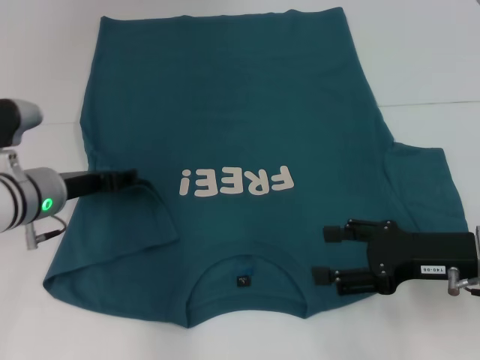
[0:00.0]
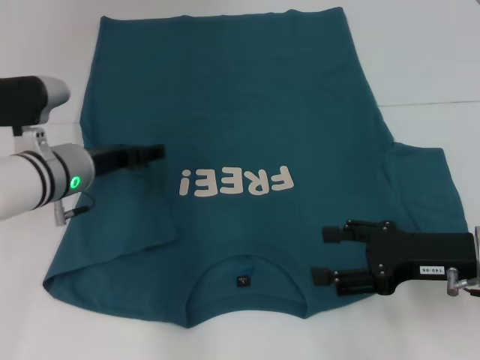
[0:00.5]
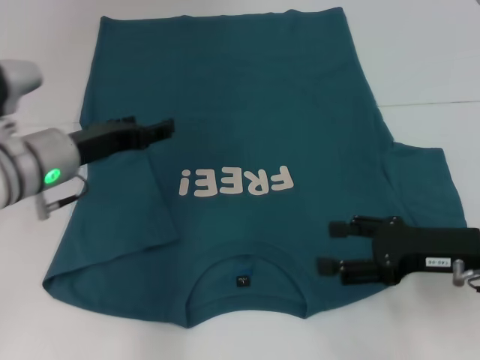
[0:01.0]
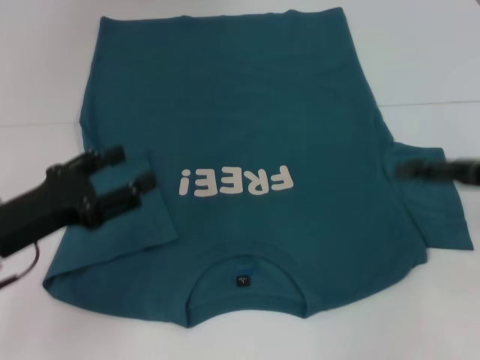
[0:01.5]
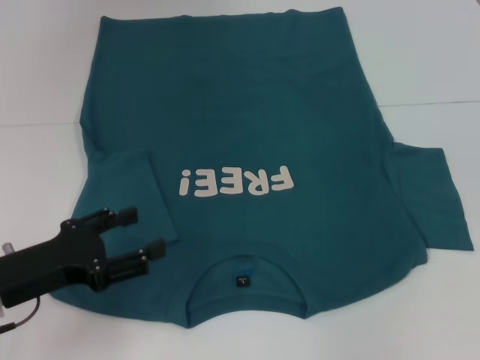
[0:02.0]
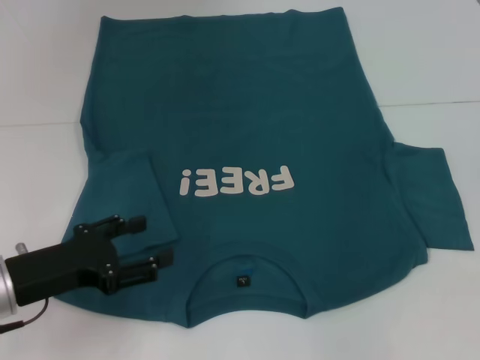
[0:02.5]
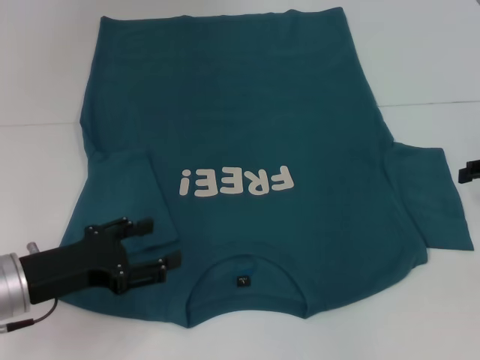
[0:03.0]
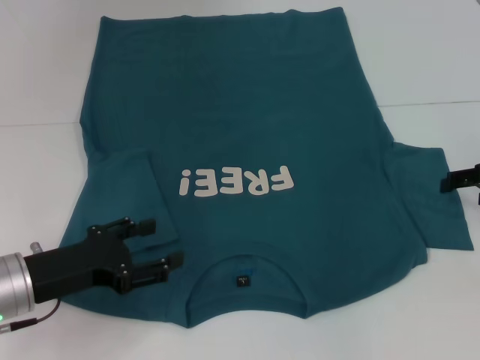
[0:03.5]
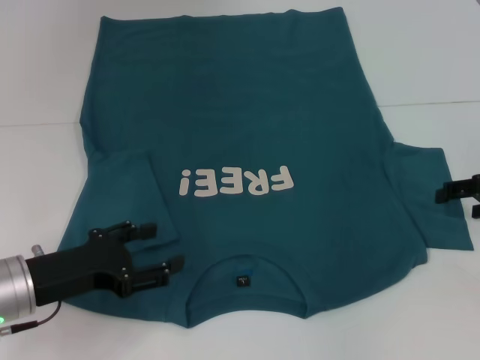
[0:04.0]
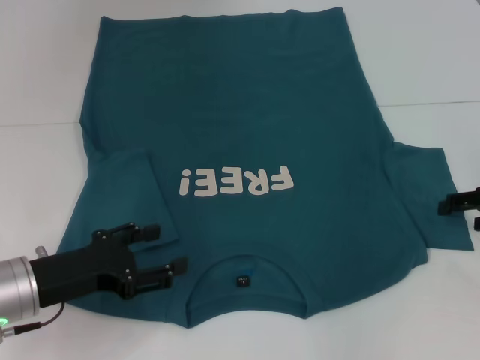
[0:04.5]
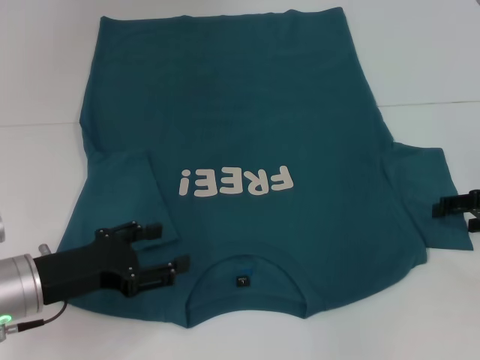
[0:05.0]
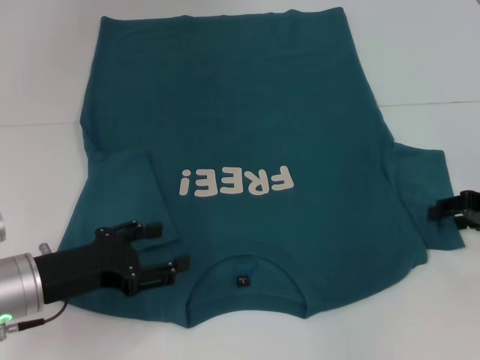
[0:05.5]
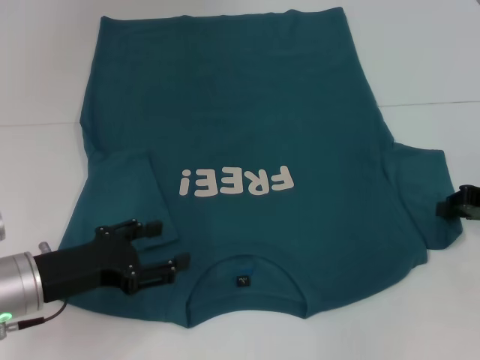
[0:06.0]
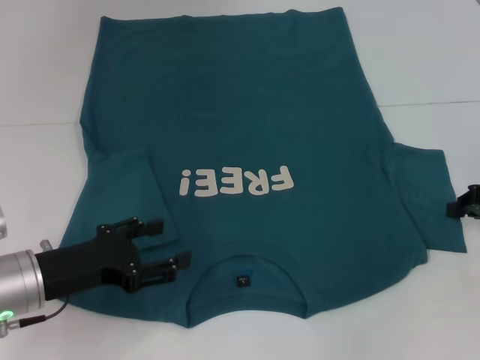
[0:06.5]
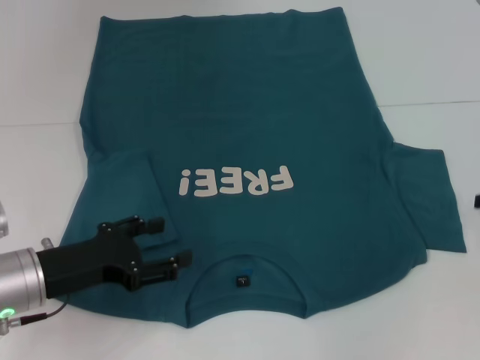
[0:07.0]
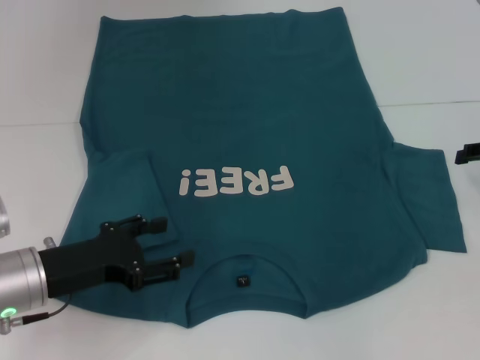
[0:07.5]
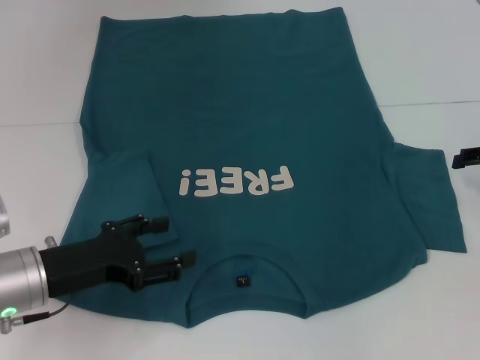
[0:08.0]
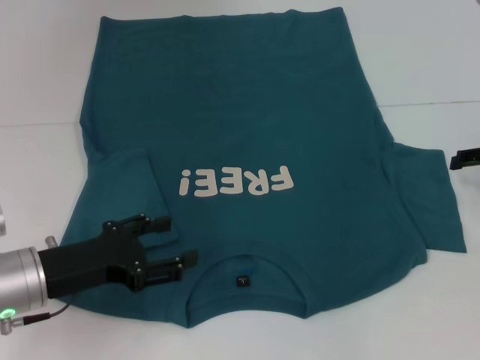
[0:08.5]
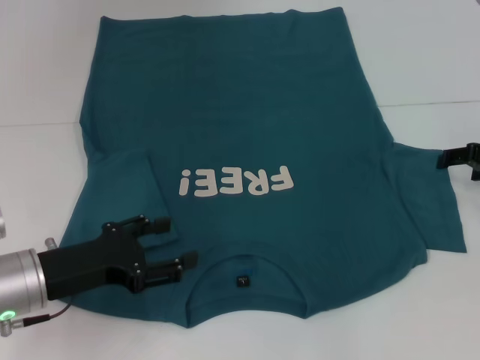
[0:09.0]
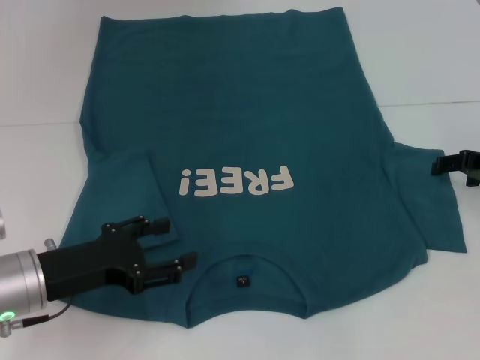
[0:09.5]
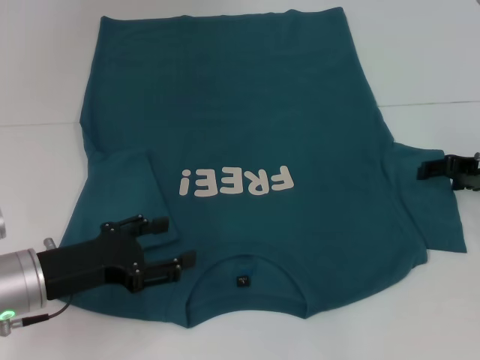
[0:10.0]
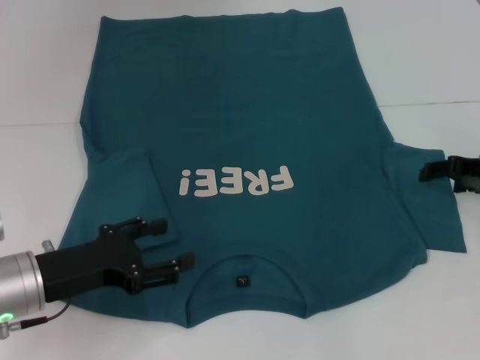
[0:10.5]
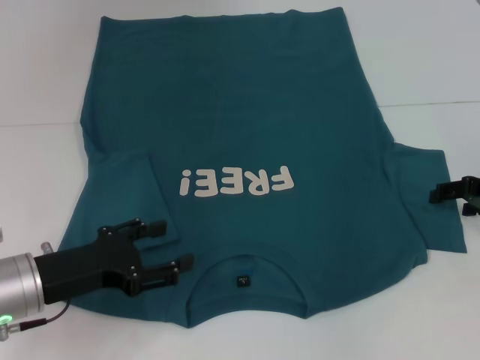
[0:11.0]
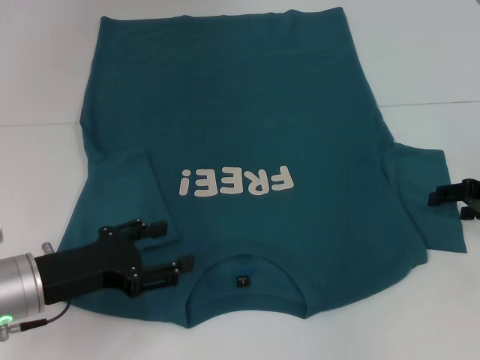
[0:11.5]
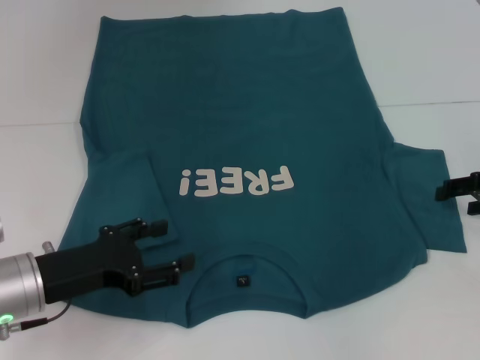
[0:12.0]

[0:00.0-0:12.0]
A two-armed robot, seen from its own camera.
0:00.0 to 0:02.0: The left gripper is displaced backward by some 10 cm, while the right gripper heads to the right and upward, covering approximately 20 cm.
0:02.0 to 0:04.0: The right gripper moves downward, approximately 10 cm.
0:04.0 to 0:06.0: The right gripper closes its fingers.
0:06.0 to 0:08.0: The right gripper opens up.
0:08.0 to 0:10.0: The right gripper changes place by roughly 5 cm.
0:10.0 to 0:12.0: The grippers stay close to where they were, moving slightly.

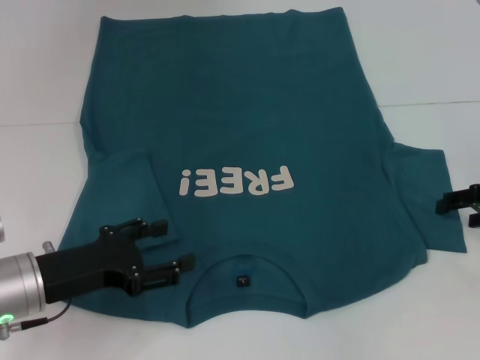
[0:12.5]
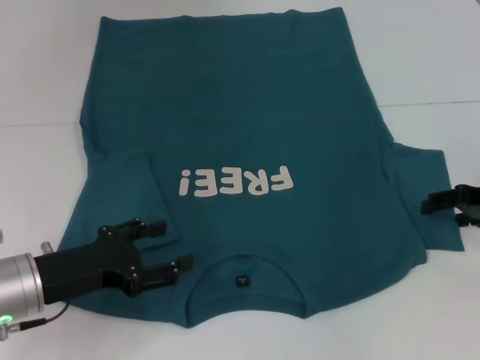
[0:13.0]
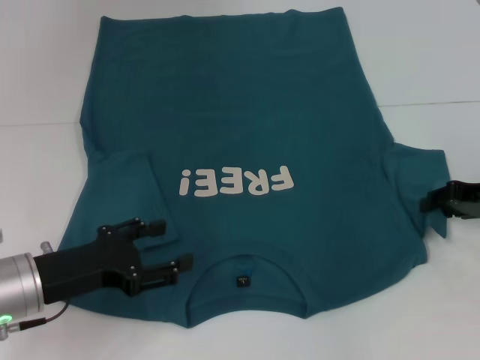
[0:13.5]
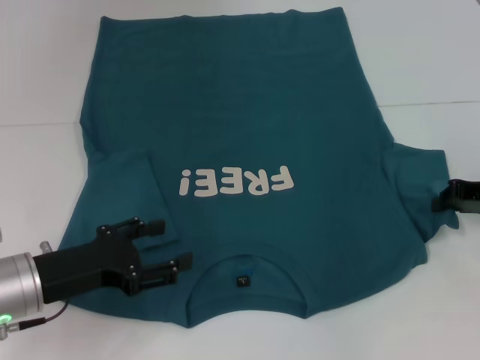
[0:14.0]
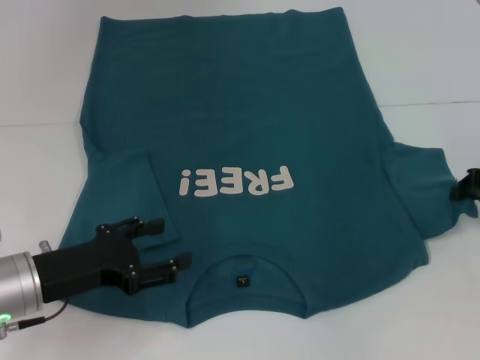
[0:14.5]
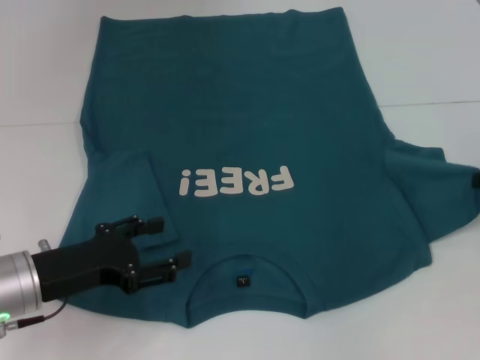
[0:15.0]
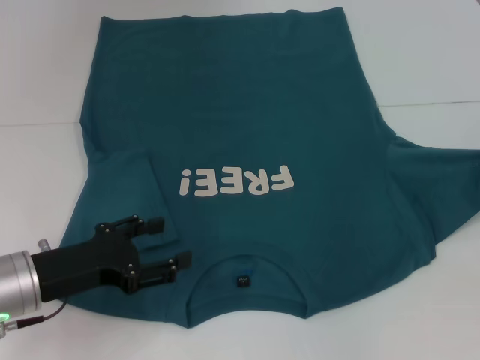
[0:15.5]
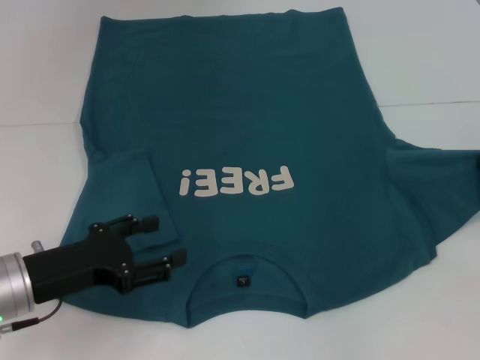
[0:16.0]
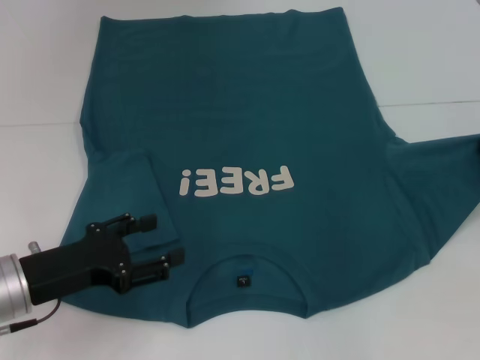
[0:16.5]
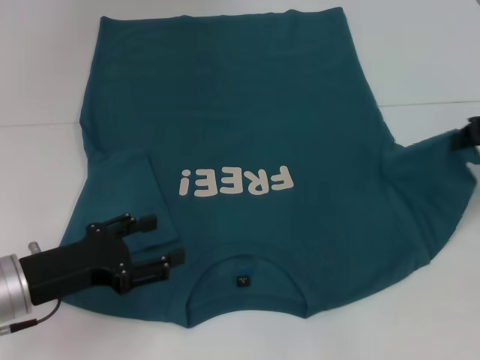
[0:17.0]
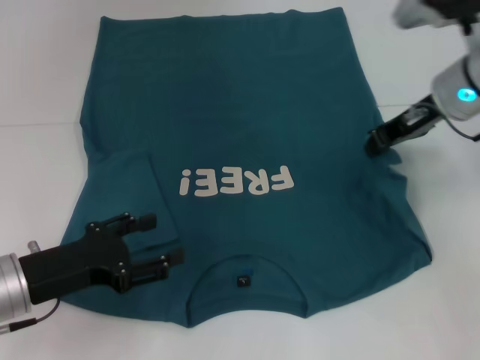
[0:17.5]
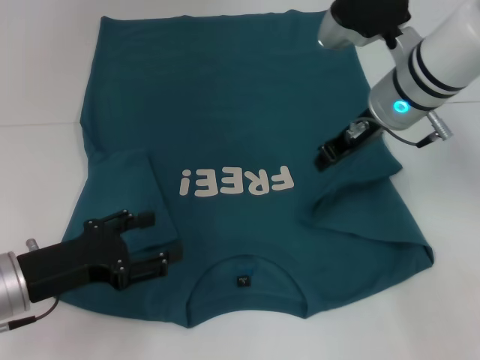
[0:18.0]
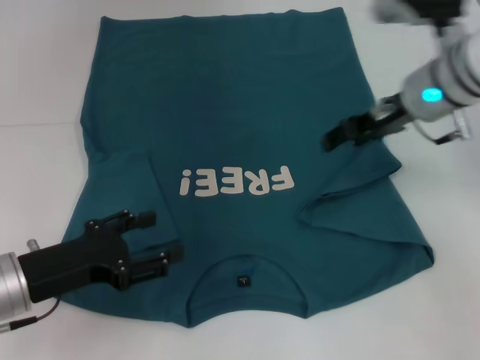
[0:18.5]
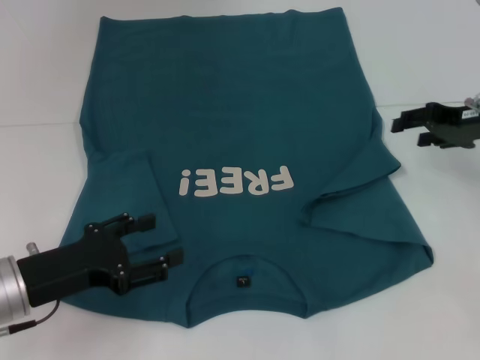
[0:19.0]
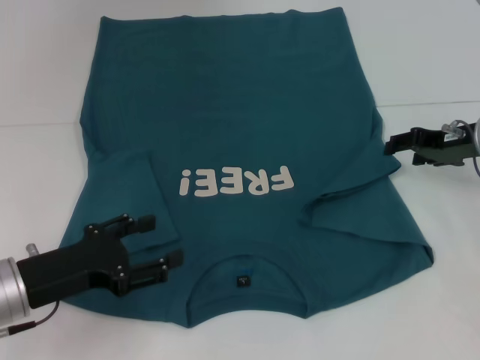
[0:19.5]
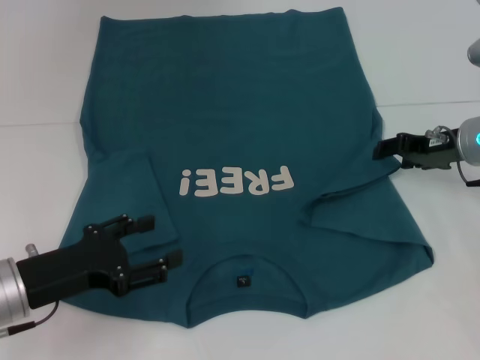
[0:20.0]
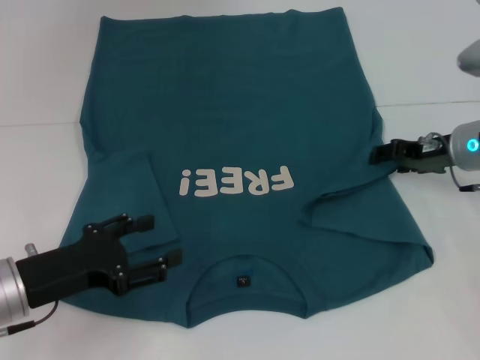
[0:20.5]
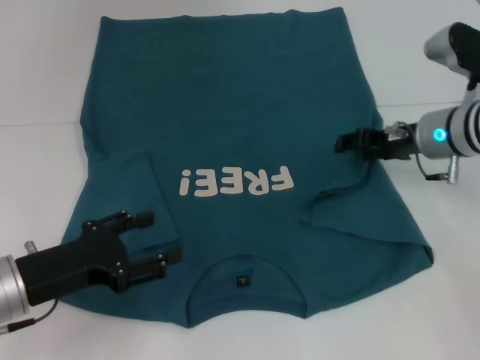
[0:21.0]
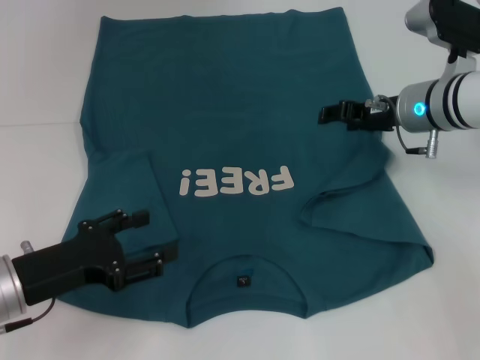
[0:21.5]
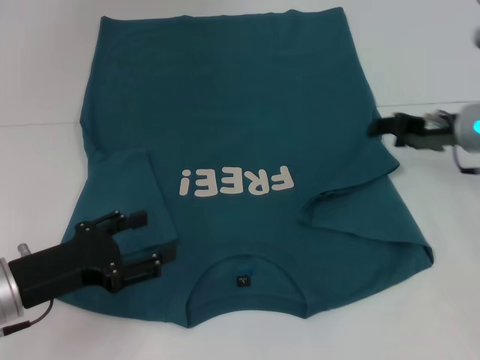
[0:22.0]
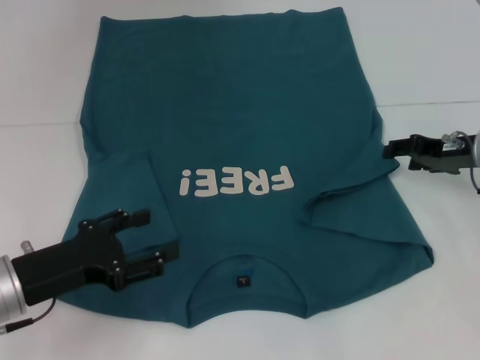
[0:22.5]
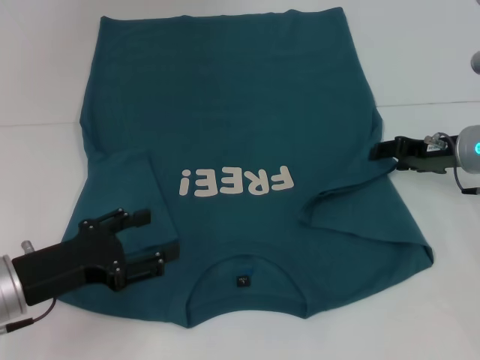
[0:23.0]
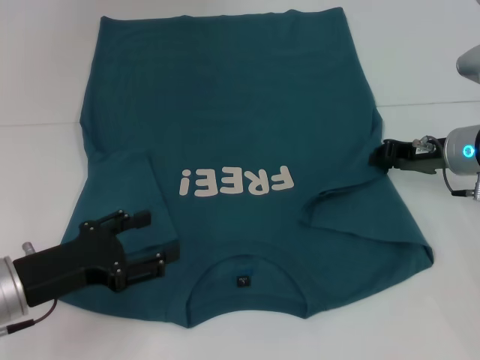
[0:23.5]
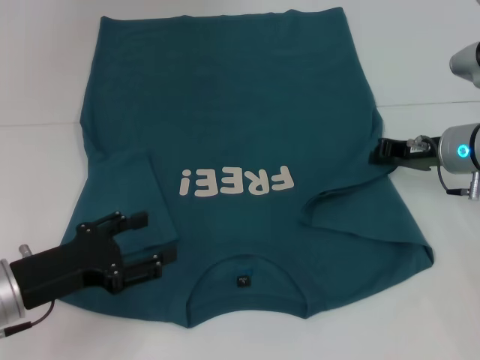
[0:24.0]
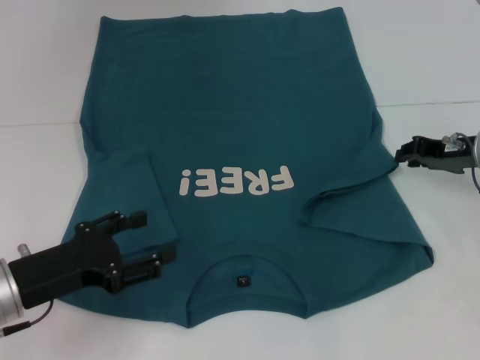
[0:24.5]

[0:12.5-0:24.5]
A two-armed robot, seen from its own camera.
0:12.5 to 0:14.5: The right gripper closes its fingers.
0:14.5 to 0:16.5: The right gripper moves roughly 5 cm.
0:16.5 to 0:18.5: The right gripper is displaced to the left by about 15 cm, and opens.
0:18.5 to 0:20.5: The right gripper travels downward and to the right by approximately 10 cm.
0:20.5 to 0:22.5: The right gripper goes to the left and returns, some 5 cm each way.
0:22.5 to 0:24.5: The right gripper closes up.

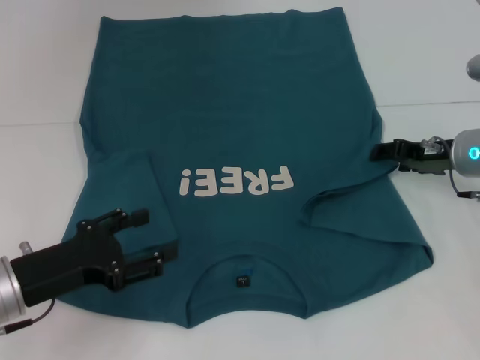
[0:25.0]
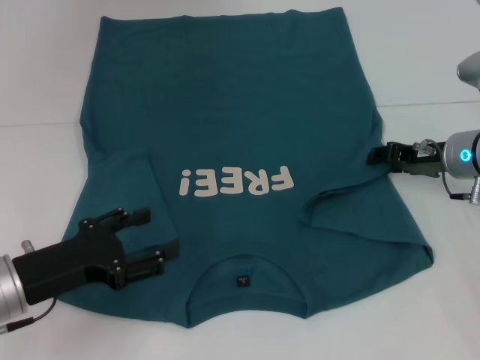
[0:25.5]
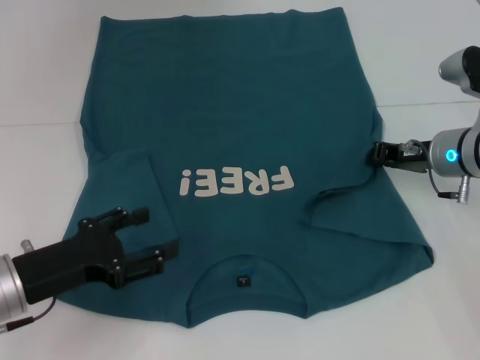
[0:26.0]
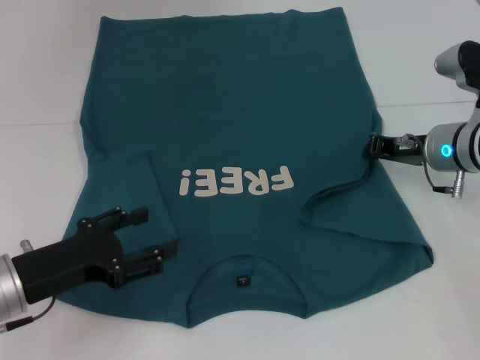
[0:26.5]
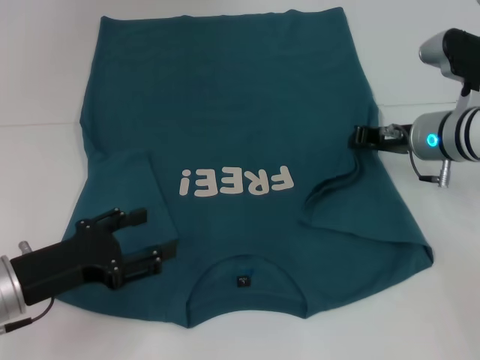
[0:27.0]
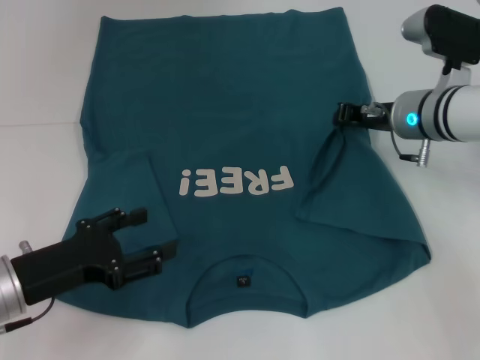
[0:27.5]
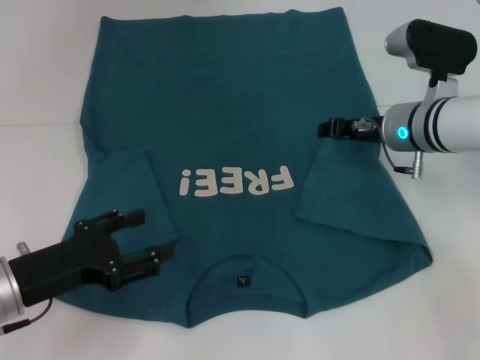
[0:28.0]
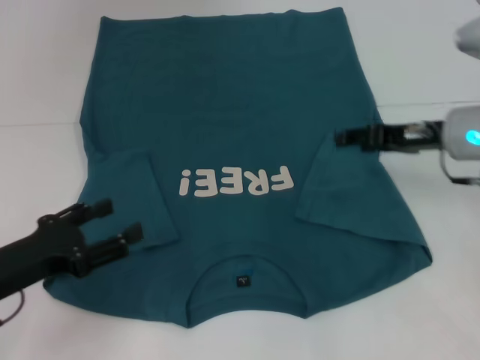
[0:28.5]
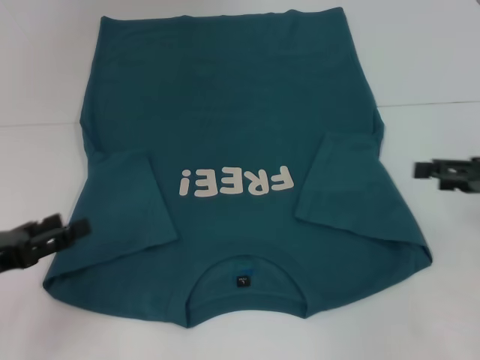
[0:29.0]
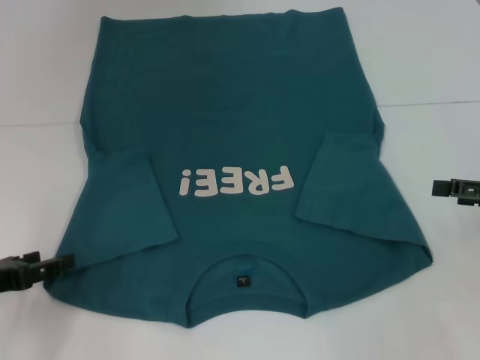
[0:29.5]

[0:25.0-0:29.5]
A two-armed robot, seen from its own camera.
Step, 0:25.0 to 0:28.0: Fold the bottom right sleeve to the right.
0:25.0 to 0:27.0: The right gripper closes.
0:27.0 to 0:29.5: The left gripper is displaced to the left by some 10 cm; the right gripper is displaced to the right and backward by about 20 cm, and opens up.
